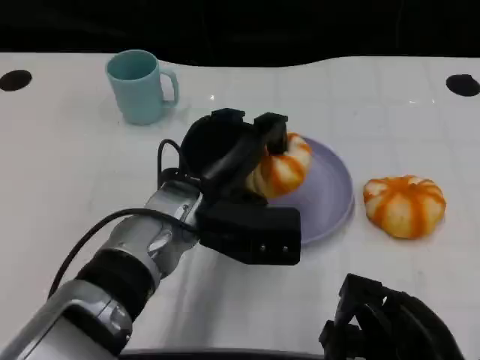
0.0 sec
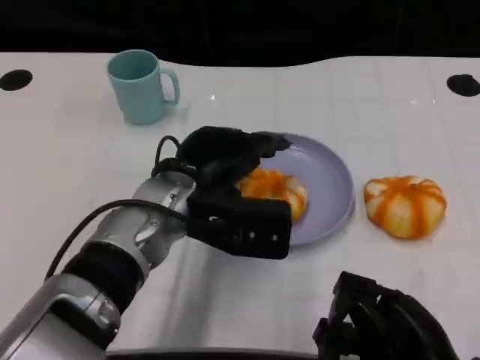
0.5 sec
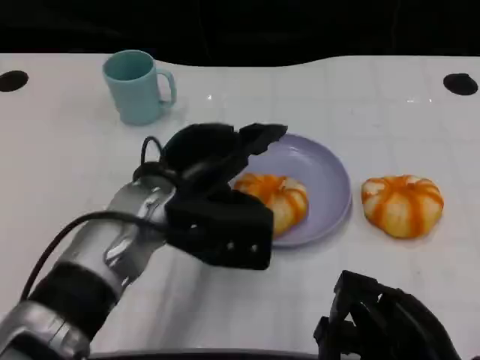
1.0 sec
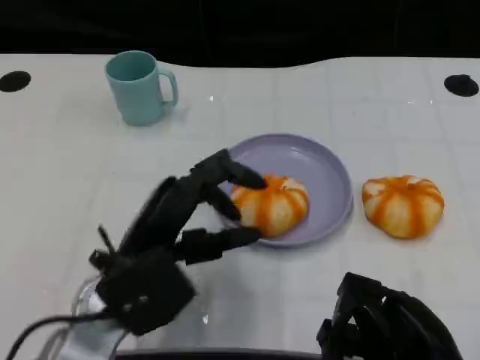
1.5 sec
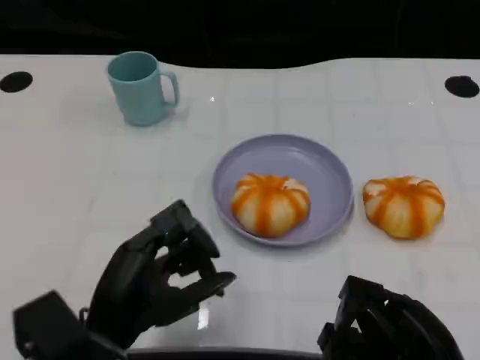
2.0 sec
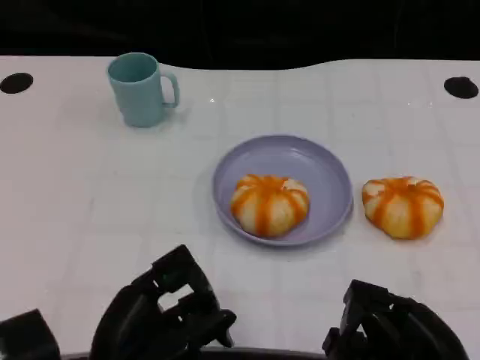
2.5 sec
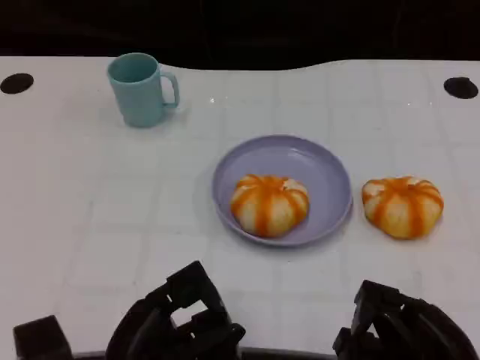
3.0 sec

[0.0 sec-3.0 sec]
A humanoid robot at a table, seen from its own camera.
Task of the whole recording: Grasp the bread from the table and place it into the plate.
0.0 sec to 1.5 sec: The left hand heads backward and to the left, covering roughly 10 cm.
1.5 sec to 3.0 sec: The left hand travels backward by about 10 cm.

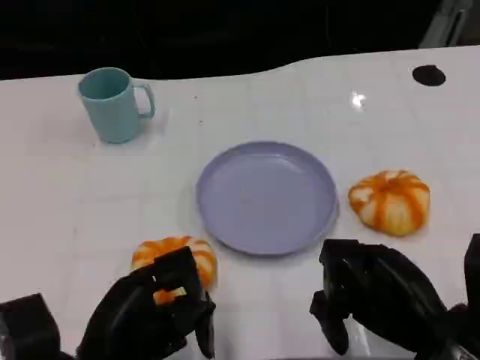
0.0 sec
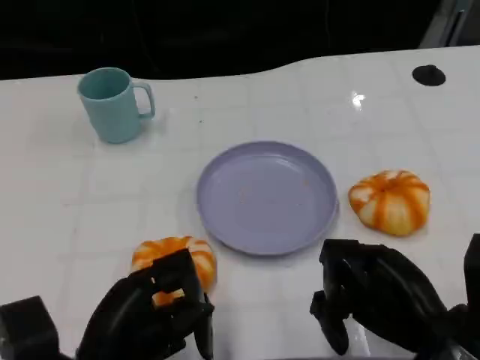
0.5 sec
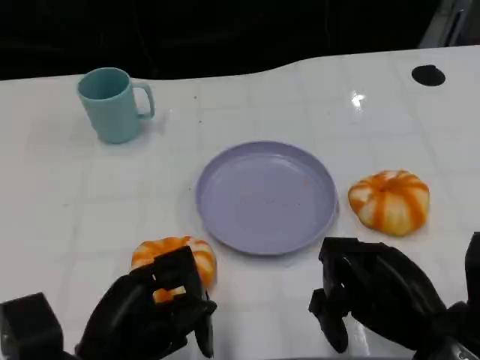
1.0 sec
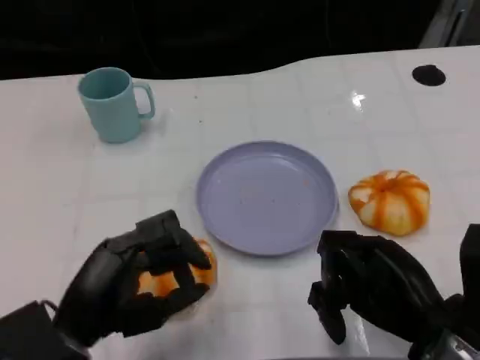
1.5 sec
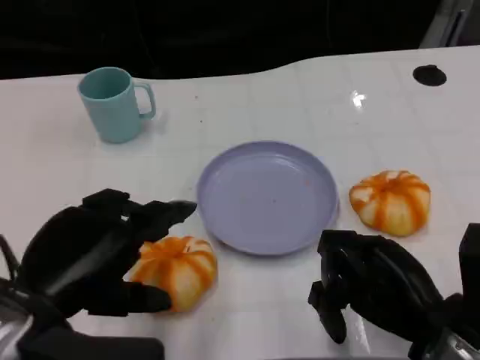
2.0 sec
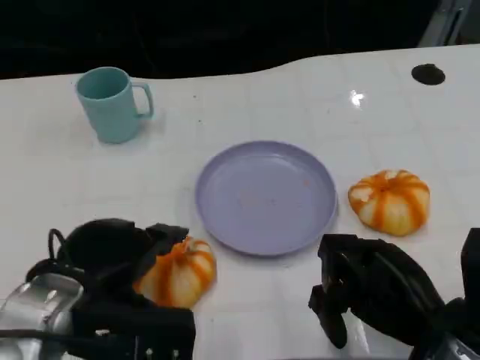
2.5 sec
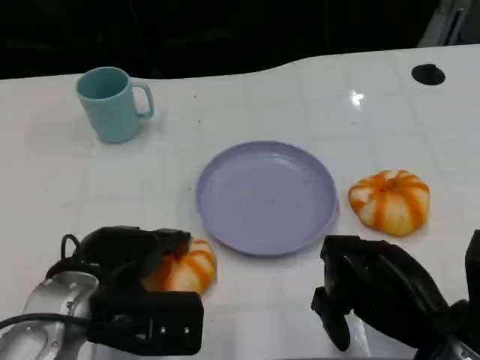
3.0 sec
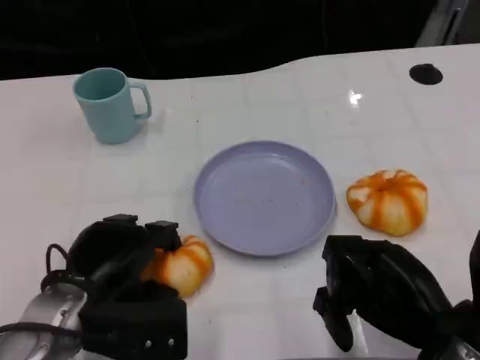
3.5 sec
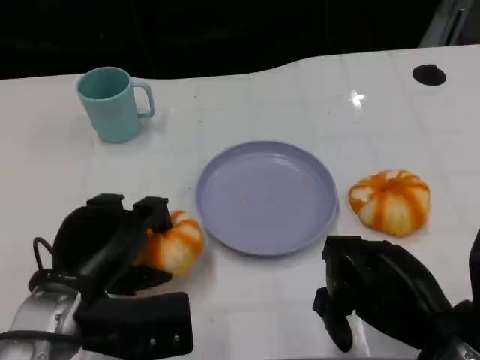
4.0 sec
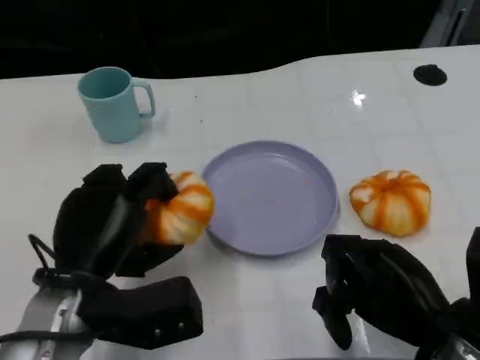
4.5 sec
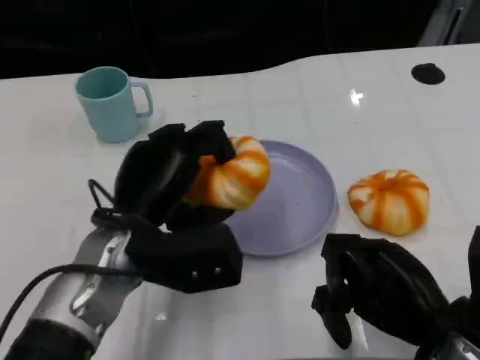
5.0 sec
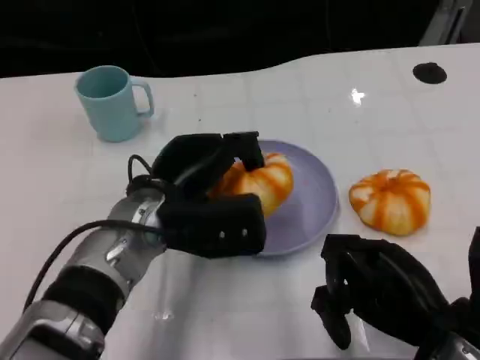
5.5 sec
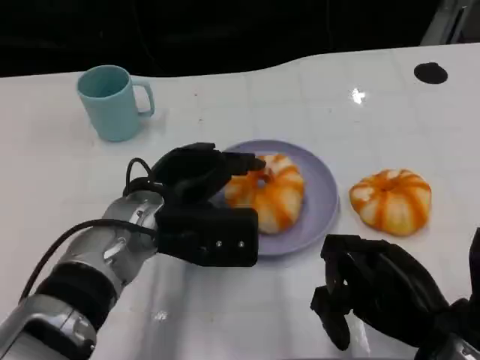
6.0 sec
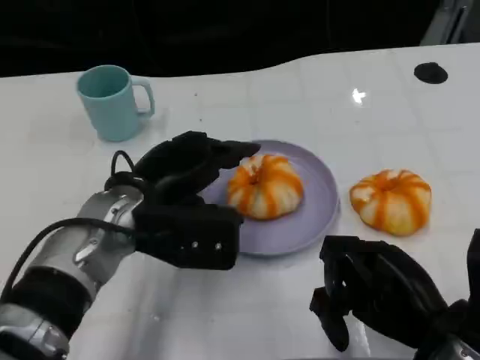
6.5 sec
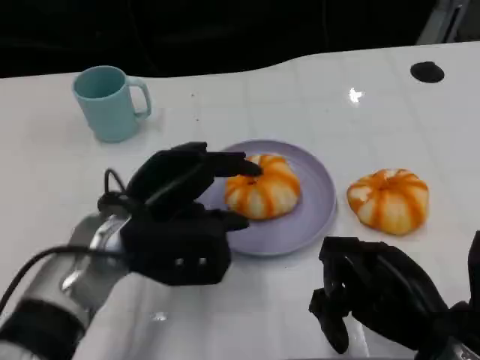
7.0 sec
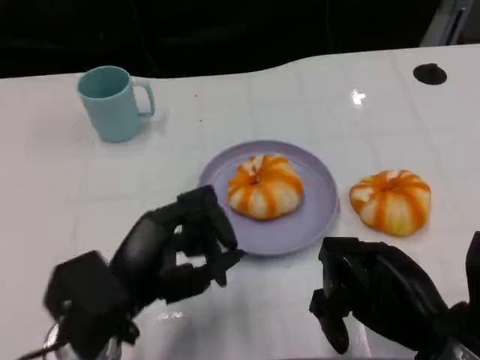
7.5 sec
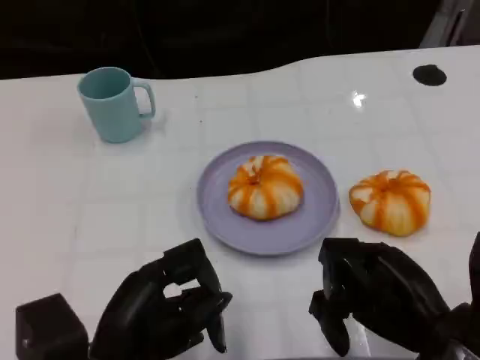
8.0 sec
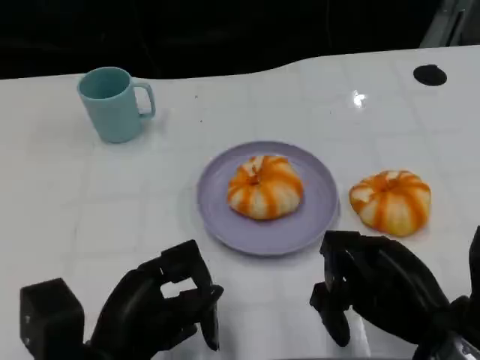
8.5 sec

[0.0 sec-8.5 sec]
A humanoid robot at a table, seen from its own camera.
Task of the whole recording: Grasp the bread from the table and place it into the plate.
0.0 sec to 2.0 sec: The left hand heads upward, covering approximately 10 cm.
2.0 sec to 4.0 sec: The left hand is displaced downward by approximately 5 cm.
4.0 sec to 6.5 sec: The left hand shifts about 10 cm forward and to the right.
6.5 sec to 8.5 sec: The left hand travels backward and downward by some 15 cm.

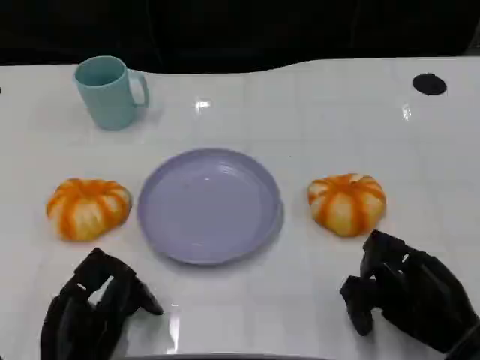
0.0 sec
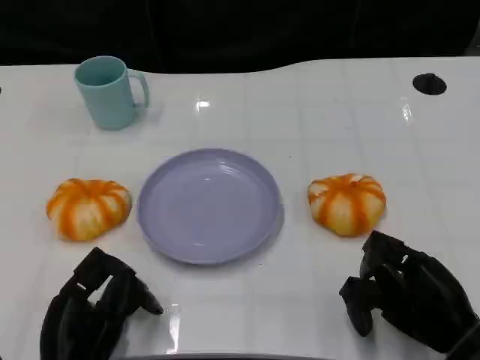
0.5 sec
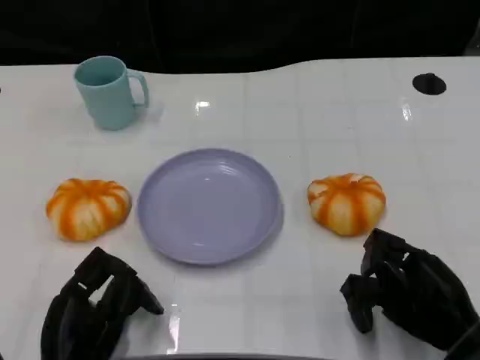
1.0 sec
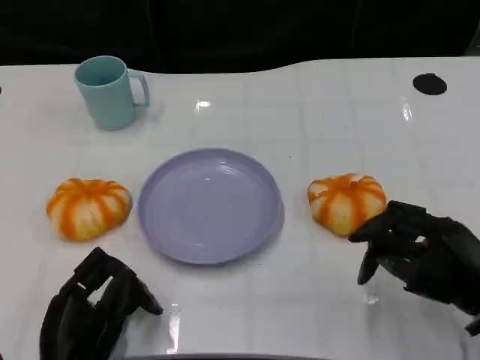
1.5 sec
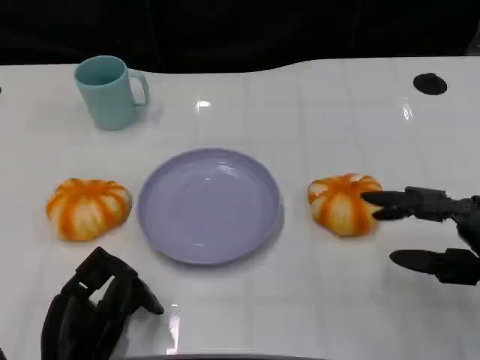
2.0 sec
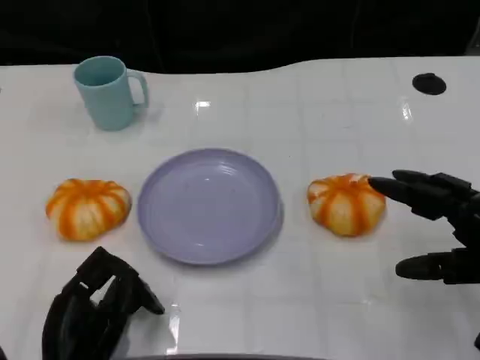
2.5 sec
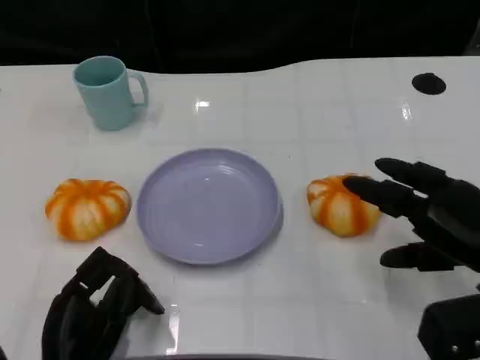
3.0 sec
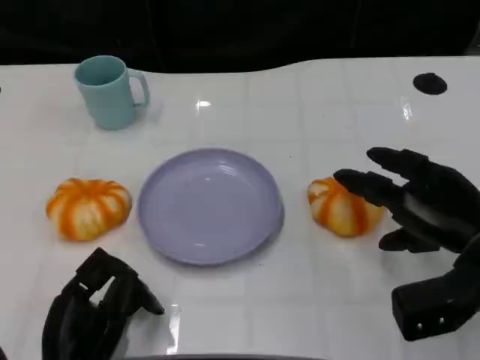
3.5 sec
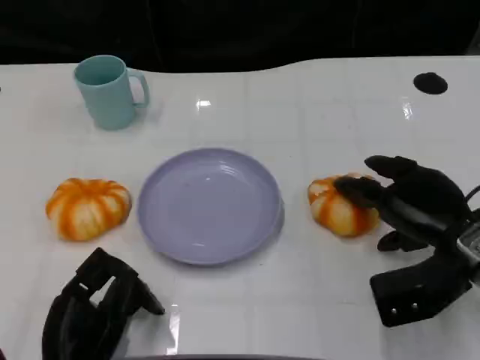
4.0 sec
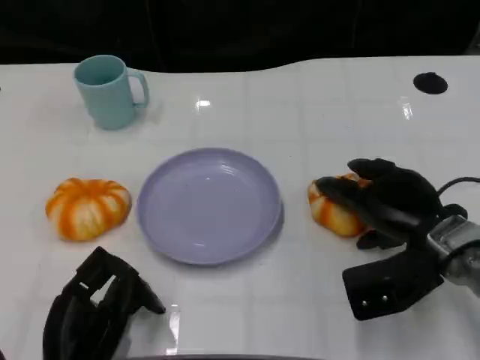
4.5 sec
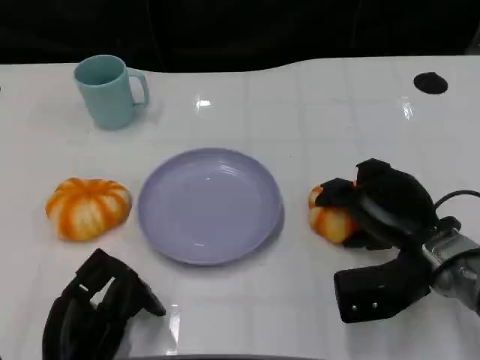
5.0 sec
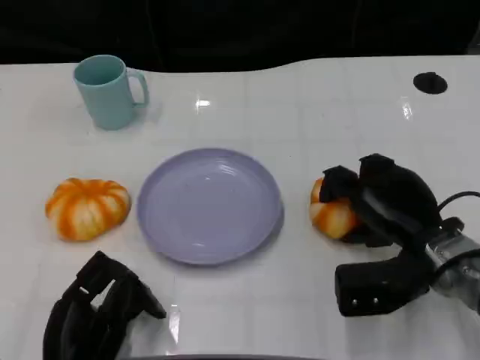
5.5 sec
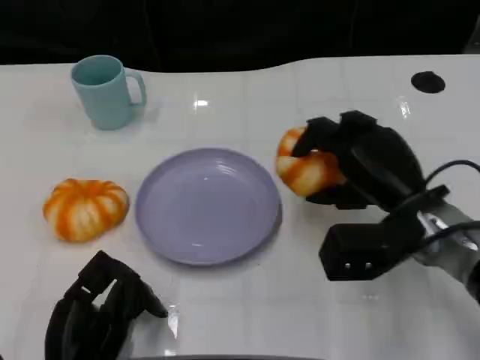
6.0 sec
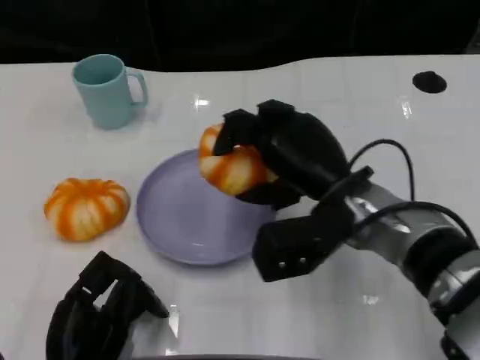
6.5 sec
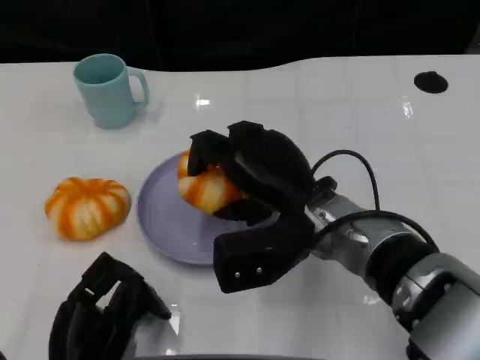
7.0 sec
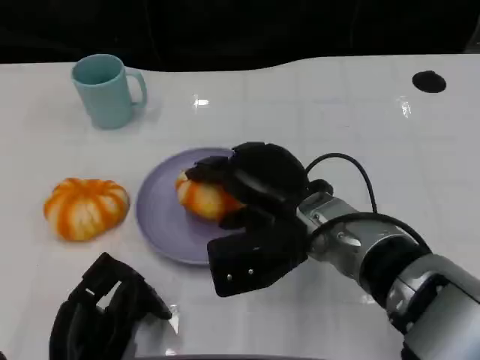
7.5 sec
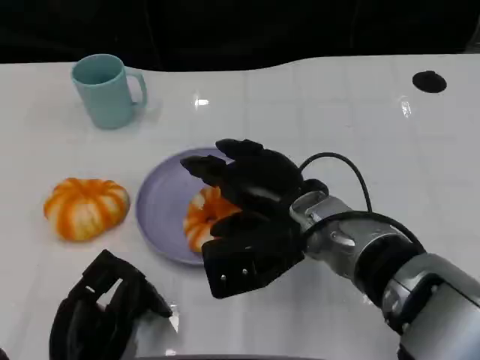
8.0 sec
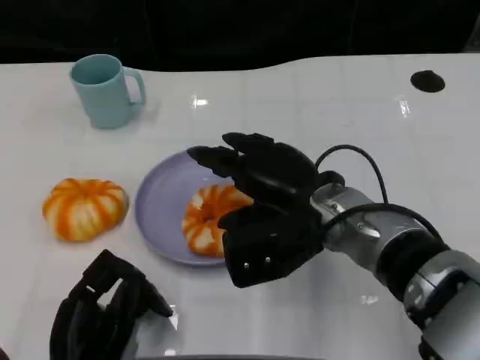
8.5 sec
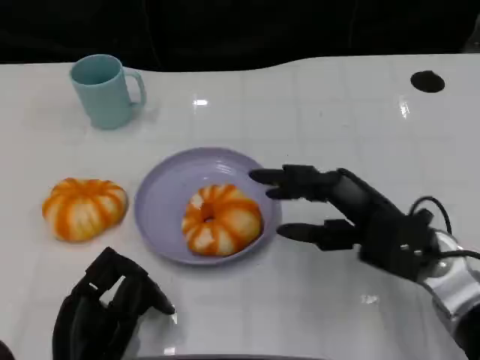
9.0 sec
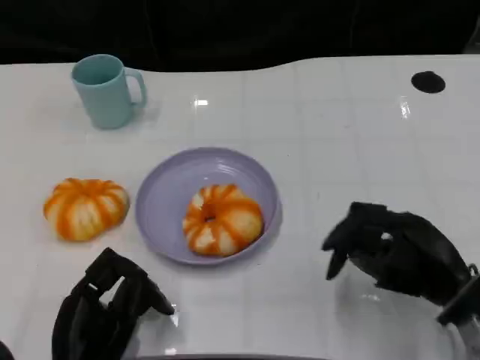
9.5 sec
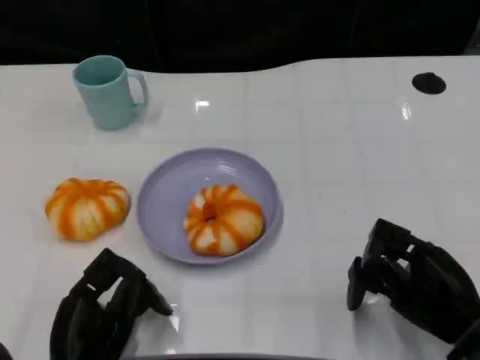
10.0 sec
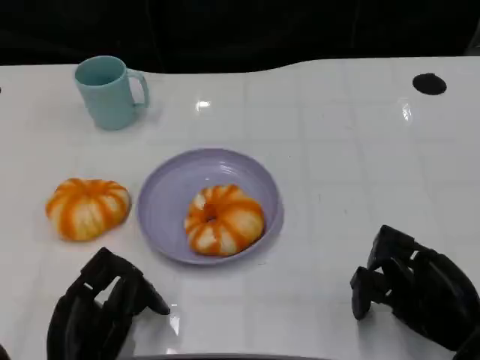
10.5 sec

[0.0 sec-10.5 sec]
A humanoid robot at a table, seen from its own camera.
Task of the whole recording: Grasp the bread from the table and place it into the plate.
0.0 sec to 2.0 sec: The right hand moves upward, some 5 cm.
2.0 sec to 4.0 sec: The right hand goes roughly 10 cm forward and to the left.
4.0 sec to 6.5 sec: The right hand heads to the left, covering about 15 cm.
8.5 sec to 10.5 sec: The right hand heads to the right, backward and downward, covering some 20 cm.

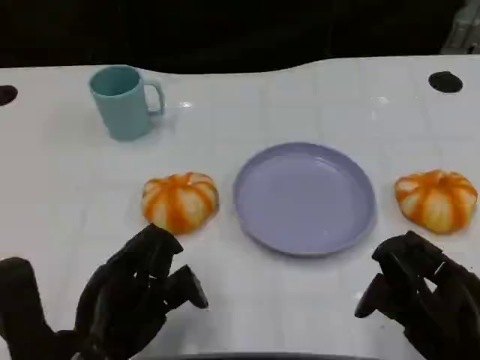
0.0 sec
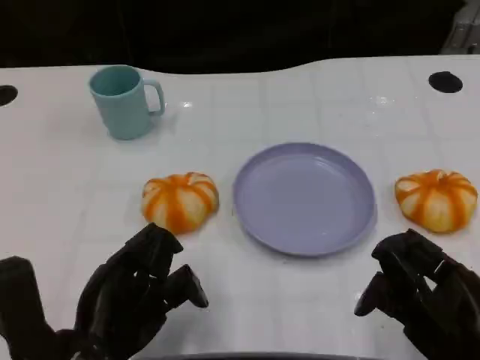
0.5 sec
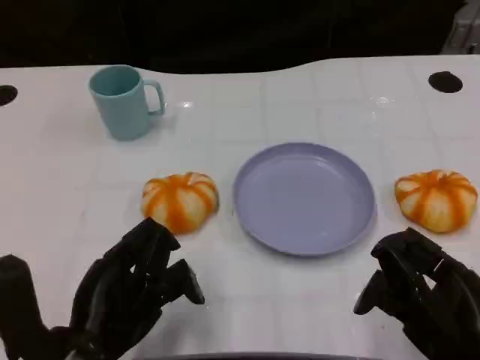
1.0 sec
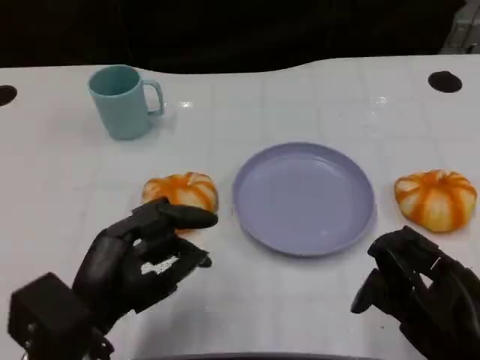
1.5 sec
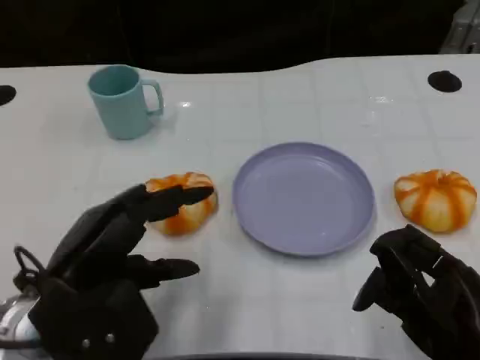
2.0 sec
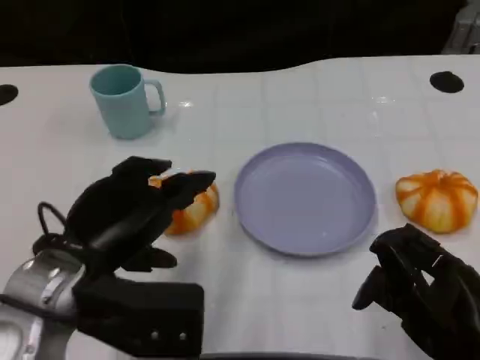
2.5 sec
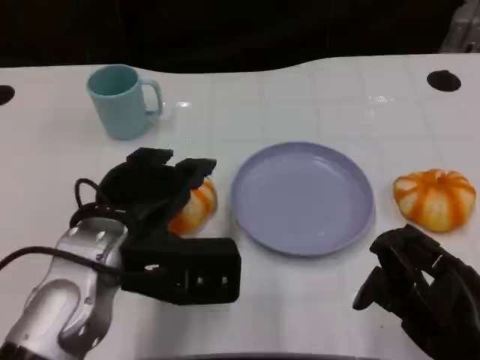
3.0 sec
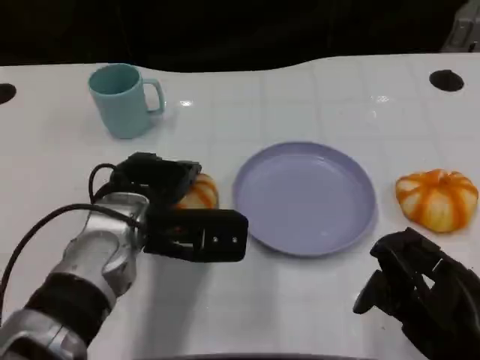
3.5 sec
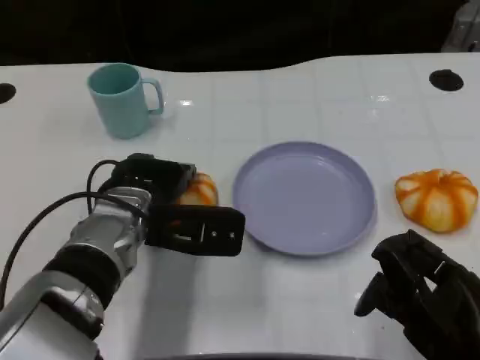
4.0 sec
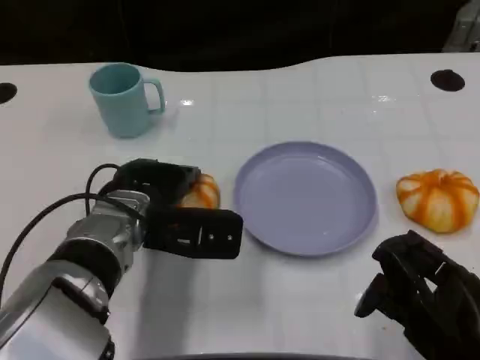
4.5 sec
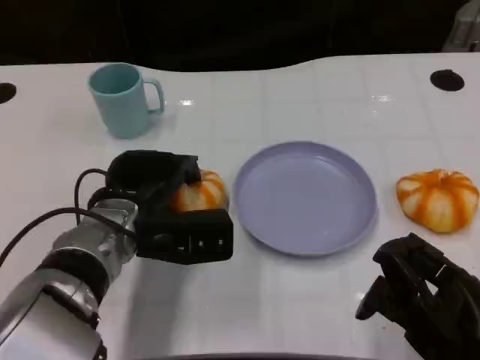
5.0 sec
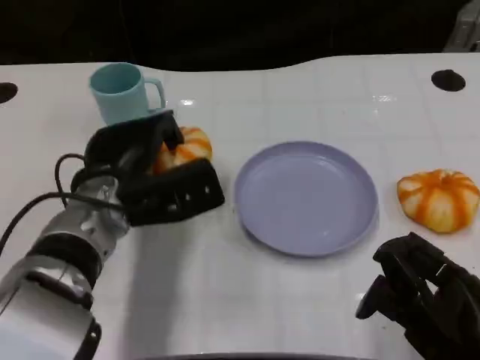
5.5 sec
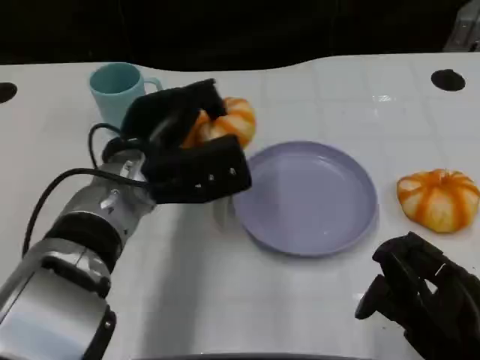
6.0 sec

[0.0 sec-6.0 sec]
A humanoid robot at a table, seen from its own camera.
Task of the whole recording: Grasp the bread from the table and place it into the plate.
0.0 sec to 2.0 sec: The left hand shifts by roughly 5 cm.
2.0 sec to 4.0 sec: The left hand is displaced forward and to the right by roughly 15 cm.
